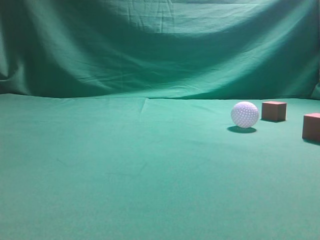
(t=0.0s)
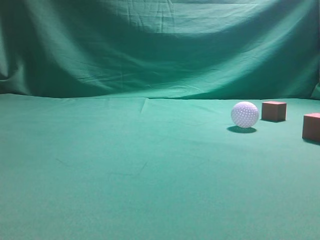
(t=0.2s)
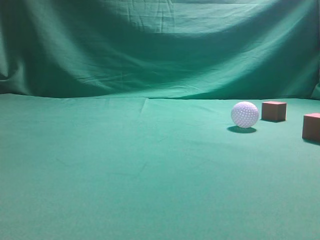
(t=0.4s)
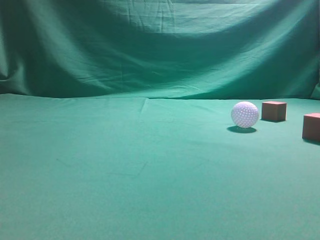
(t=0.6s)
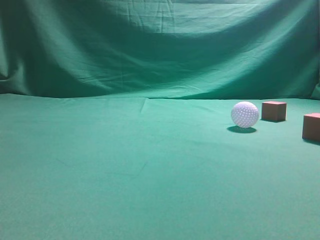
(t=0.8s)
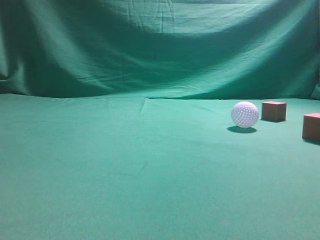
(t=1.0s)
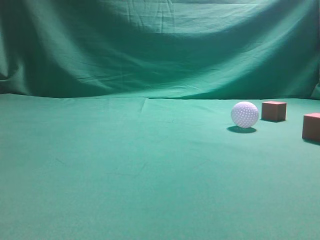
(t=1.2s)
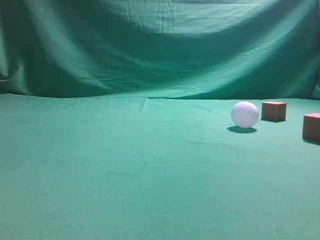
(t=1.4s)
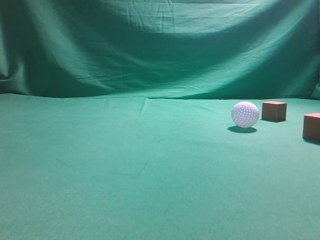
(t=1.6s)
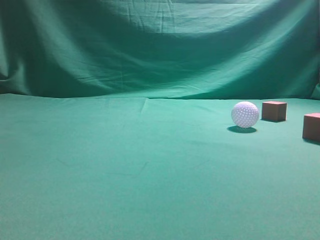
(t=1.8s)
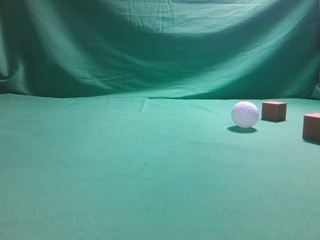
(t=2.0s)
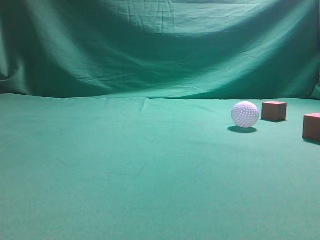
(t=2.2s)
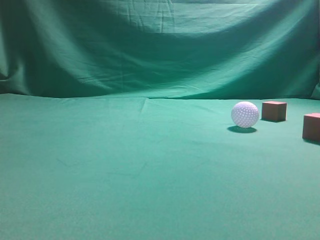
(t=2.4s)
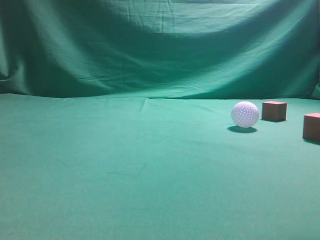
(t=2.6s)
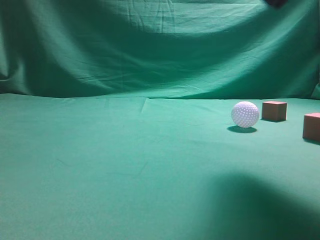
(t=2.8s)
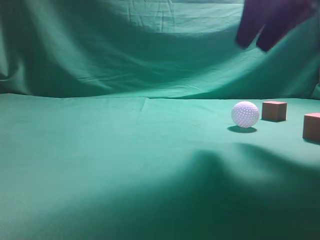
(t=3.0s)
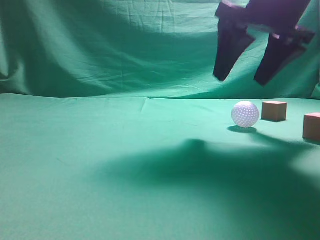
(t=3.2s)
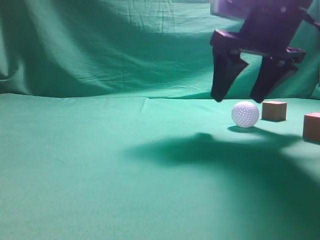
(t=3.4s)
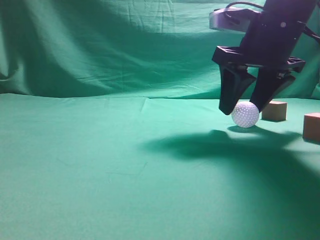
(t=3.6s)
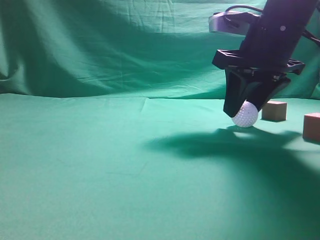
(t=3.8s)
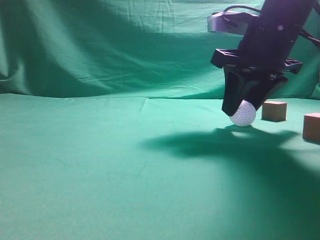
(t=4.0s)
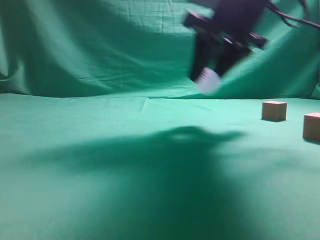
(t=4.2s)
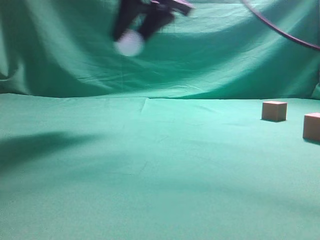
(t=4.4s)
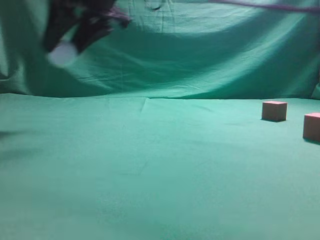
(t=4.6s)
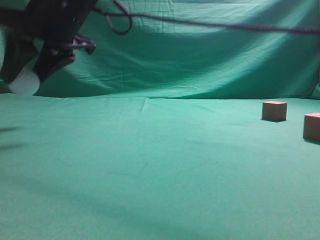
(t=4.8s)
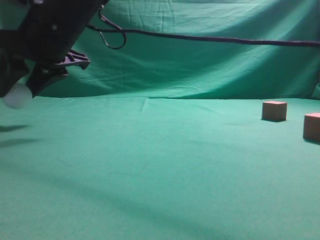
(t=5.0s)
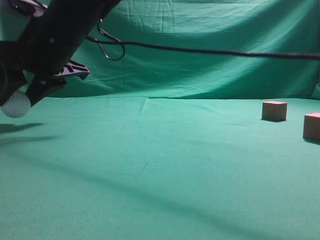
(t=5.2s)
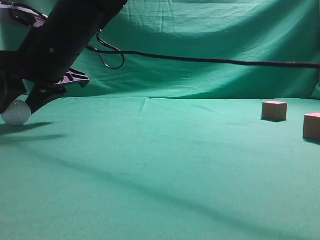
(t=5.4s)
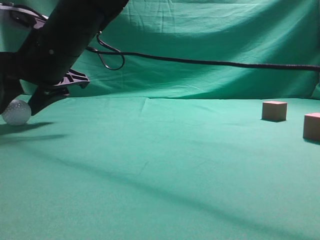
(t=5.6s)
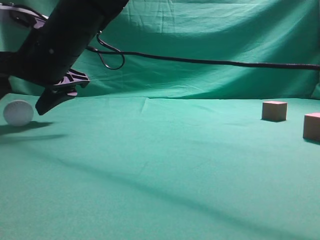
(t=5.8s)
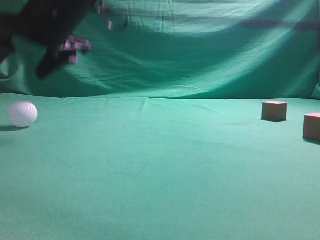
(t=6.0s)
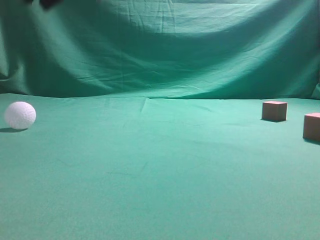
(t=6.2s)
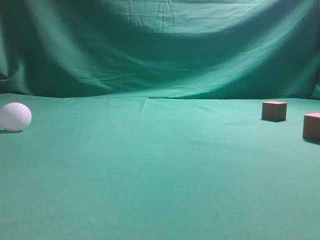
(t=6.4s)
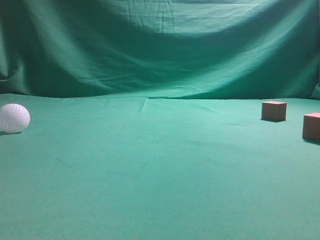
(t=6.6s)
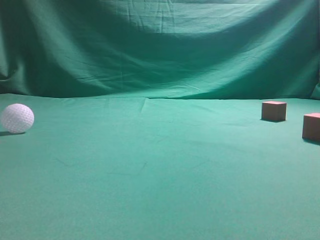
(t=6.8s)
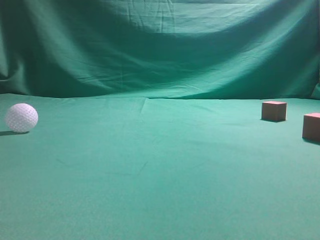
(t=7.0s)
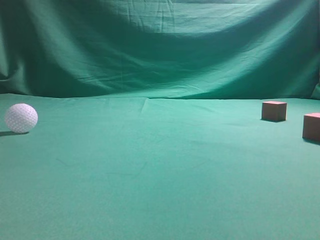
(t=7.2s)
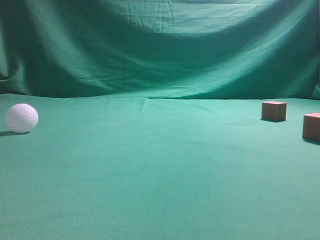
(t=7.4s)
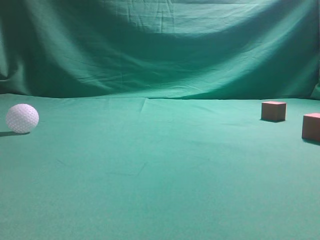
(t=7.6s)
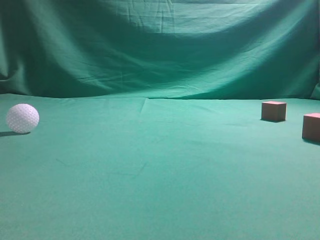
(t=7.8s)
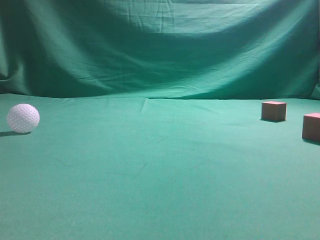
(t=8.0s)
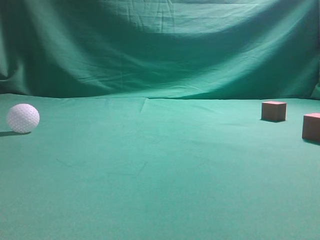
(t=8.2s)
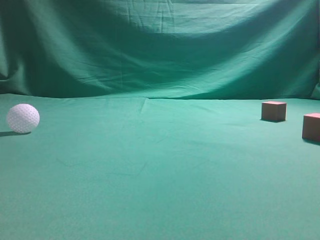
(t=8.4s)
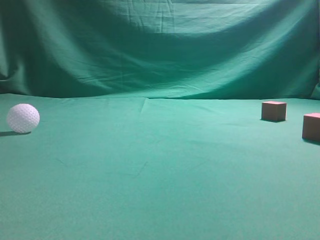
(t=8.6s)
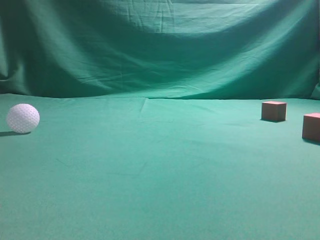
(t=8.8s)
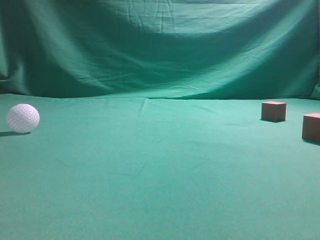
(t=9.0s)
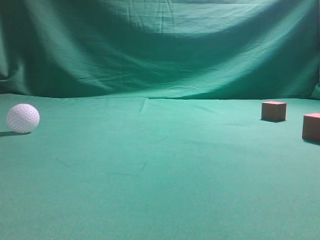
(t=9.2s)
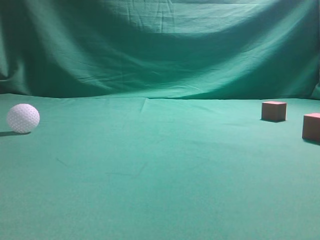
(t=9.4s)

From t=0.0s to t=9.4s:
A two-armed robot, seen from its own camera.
Step, from t=0.0s to t=3.4s: Grasp the spherical object on the right side.
From t=1.6s to t=3.2s: The right gripper moves forward and to the left, roughly 30 cm, and opens up.
From t=3.2s to t=4.8s: The right gripper shifts some 25 cm to the left, and closes up.
From t=4.8s to t=6.2s: The right gripper moves upward, approximately 10 cm, and opens, then closes again.
